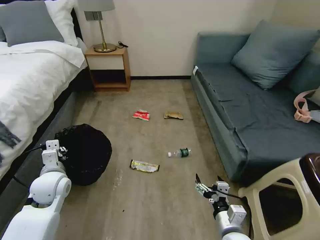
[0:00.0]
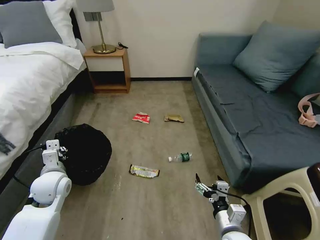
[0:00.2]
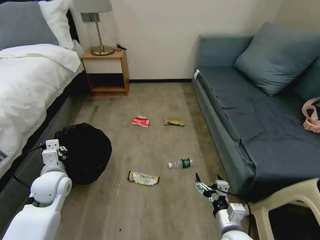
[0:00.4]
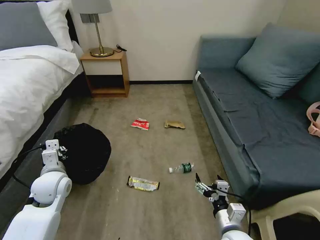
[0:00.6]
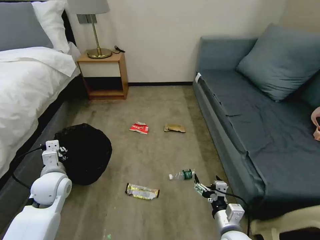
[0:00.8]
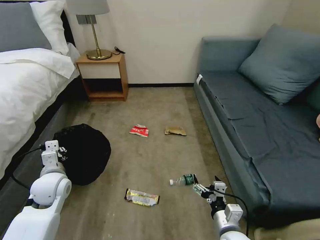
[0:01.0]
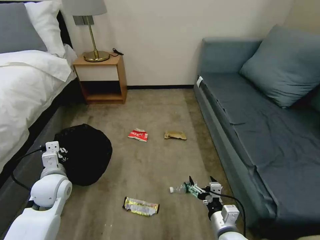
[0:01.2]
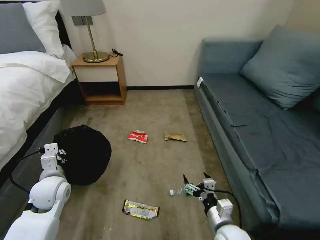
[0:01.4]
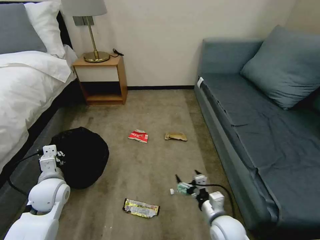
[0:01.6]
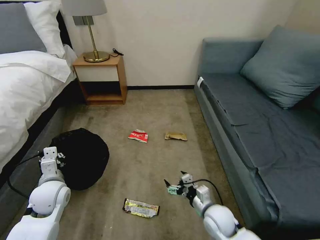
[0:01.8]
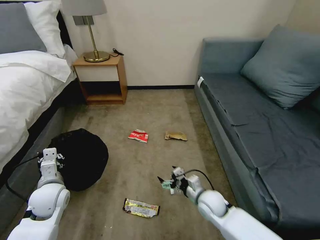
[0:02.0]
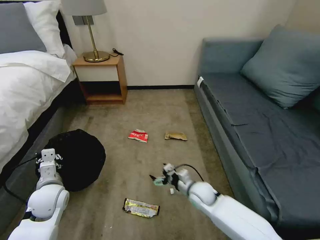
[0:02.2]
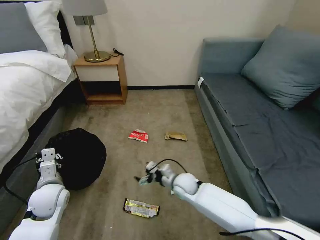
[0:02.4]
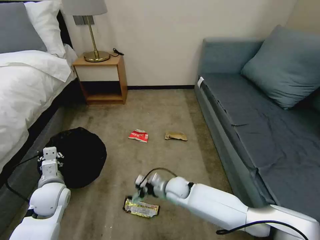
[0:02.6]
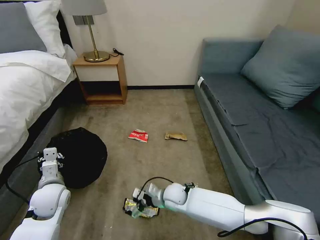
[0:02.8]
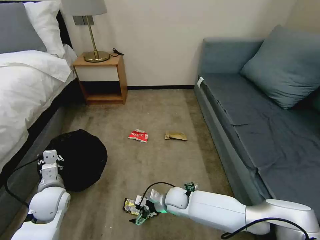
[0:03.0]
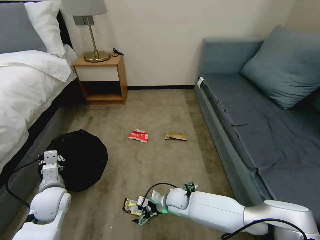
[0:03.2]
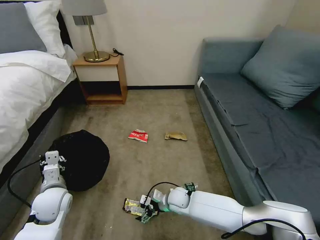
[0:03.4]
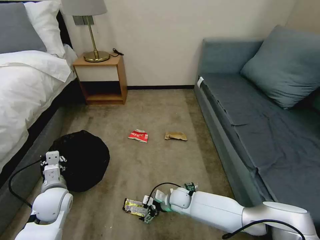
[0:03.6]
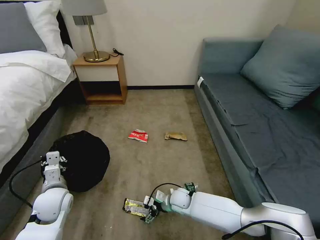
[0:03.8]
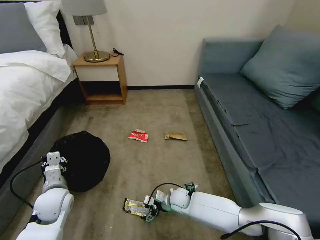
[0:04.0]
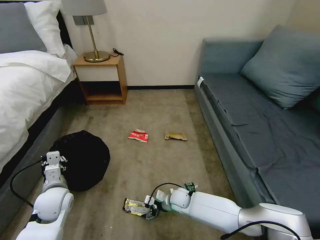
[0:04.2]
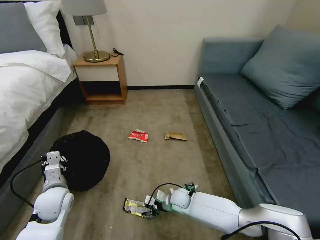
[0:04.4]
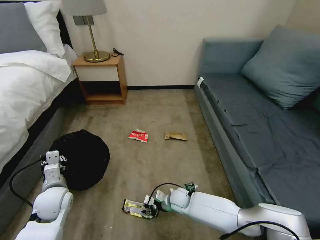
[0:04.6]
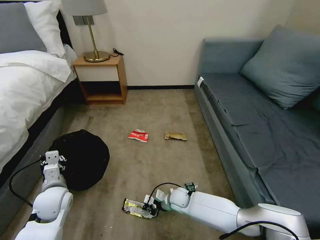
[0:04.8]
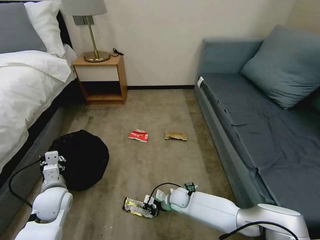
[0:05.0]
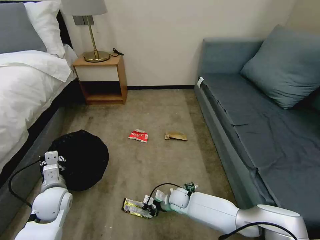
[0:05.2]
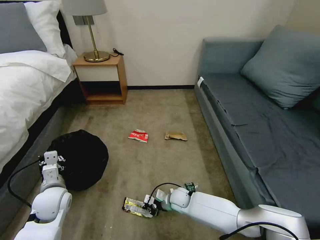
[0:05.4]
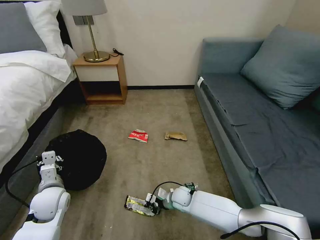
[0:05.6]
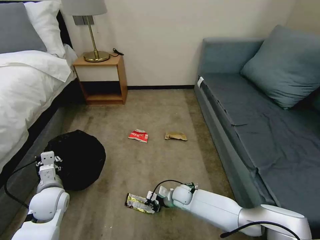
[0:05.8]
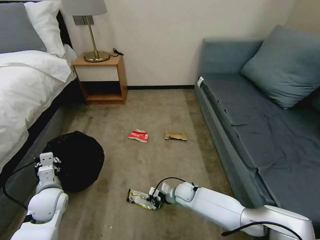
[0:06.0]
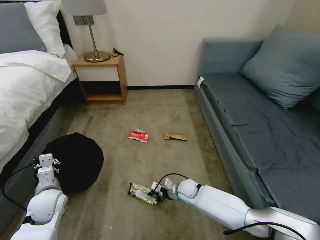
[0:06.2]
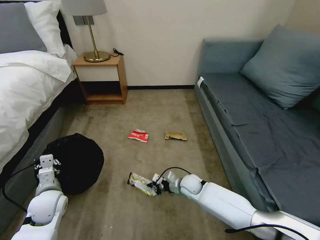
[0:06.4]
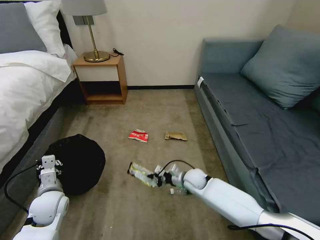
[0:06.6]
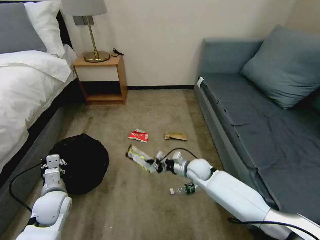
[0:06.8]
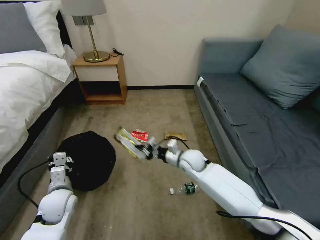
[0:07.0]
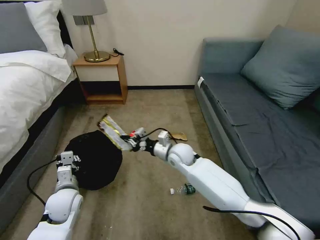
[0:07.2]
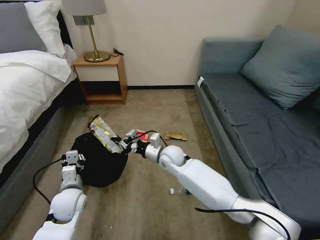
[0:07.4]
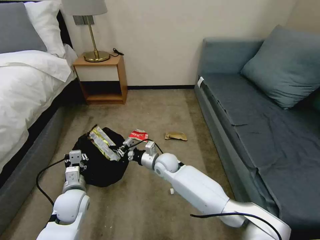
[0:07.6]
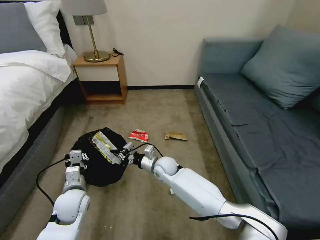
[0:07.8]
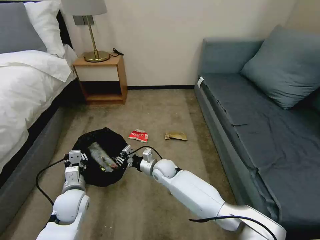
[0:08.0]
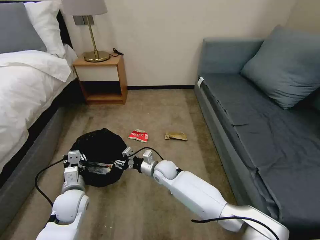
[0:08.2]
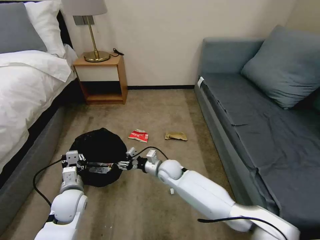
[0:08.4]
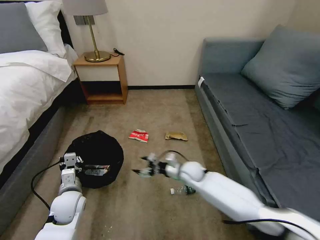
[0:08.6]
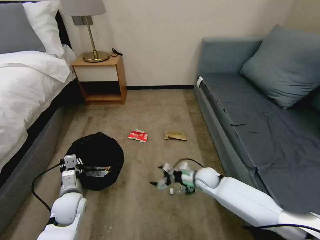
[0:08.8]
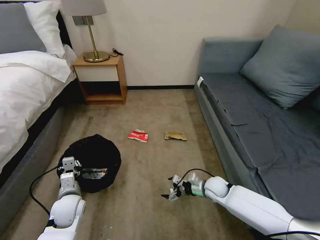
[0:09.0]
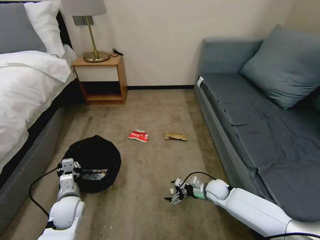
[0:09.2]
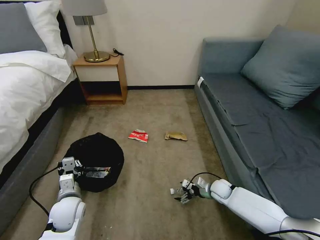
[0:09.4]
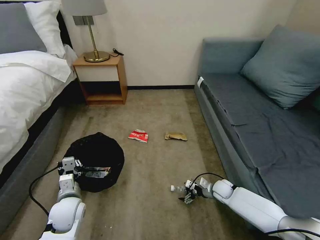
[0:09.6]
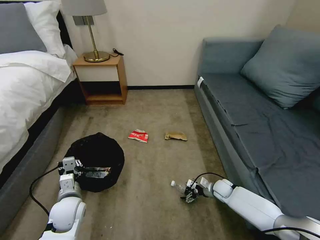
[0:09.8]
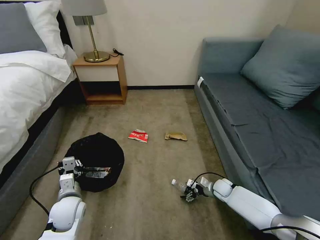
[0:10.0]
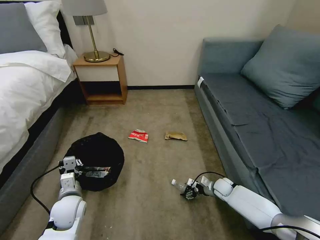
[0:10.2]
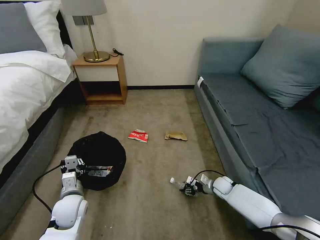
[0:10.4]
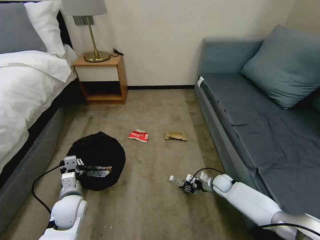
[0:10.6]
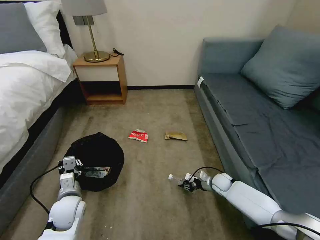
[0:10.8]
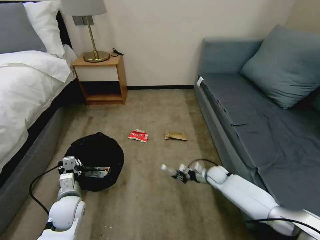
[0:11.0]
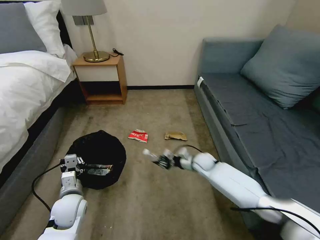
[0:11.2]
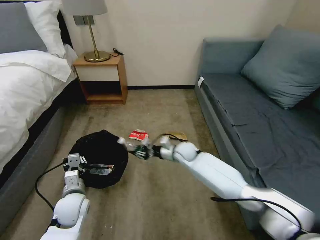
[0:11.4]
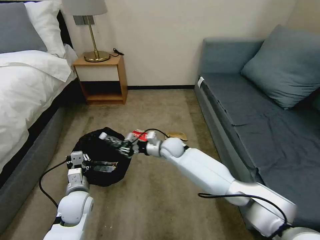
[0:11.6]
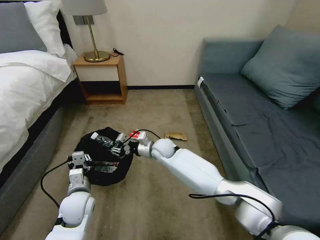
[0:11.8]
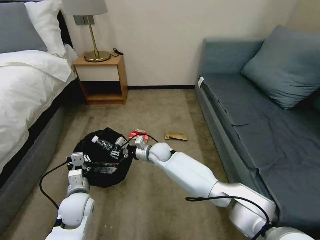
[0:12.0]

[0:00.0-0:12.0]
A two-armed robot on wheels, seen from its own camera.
Task of the whole recording: Pick up the trash bin, then pick up the garbage on the floor and place it into the trash bin.
0:00.0 to 0:01.6: The right gripper travels forward by roughly 5 cm.
0:01.6 to 0:03.0: The right gripper shifts roughly 20 cm to the left, forward and downward.
0:03.0 to 0:04.4: The right gripper travels downward by approximately 5 cm, and closes.
0:04.4 to 0:06.0: The right gripper closes.
0:06.0 to 0:07.6: The right gripper is displaced upward, to the left and forward by roughly 20 cm, while the left gripper is displaced to the right by some 5 cm.
0:07.6 to 0:09.0: The right gripper travels to the right and downward by approximately 25 cm, and opens up.
0:09.0 to 0:10.4: The right gripper heads downward and to the right, covering about 10 cm, and closes.
0:10.4 to 0:12.0: The right gripper heads to the left and upward, covering roughly 35 cm.

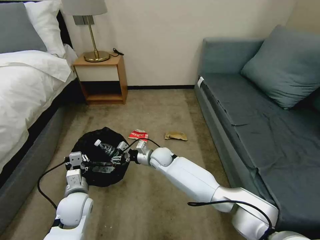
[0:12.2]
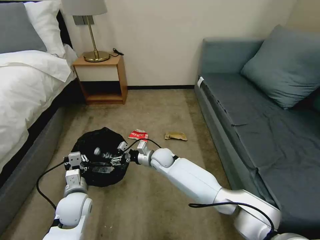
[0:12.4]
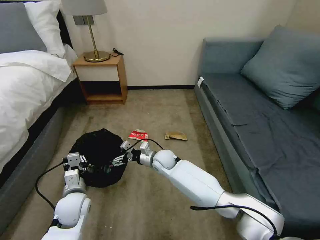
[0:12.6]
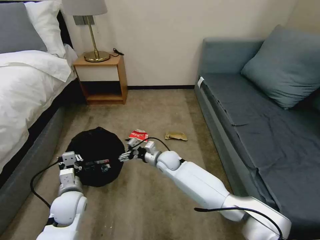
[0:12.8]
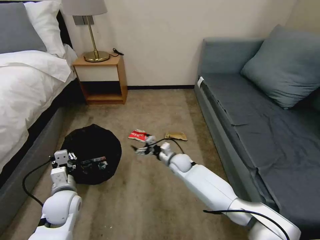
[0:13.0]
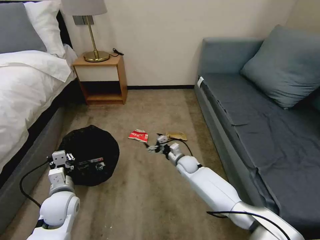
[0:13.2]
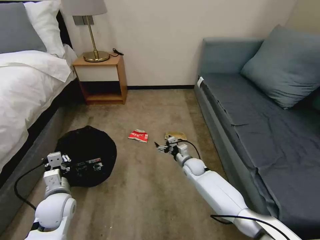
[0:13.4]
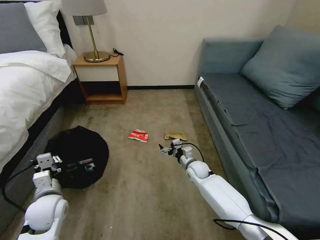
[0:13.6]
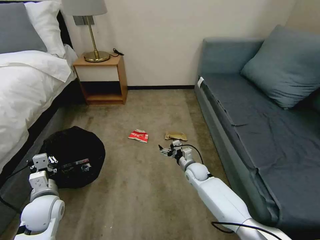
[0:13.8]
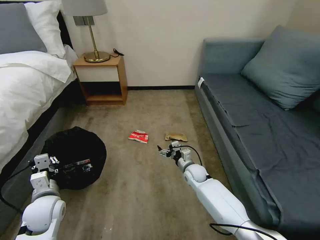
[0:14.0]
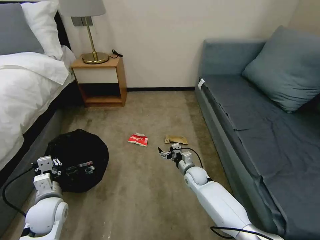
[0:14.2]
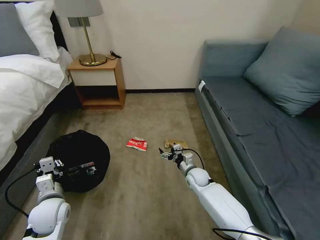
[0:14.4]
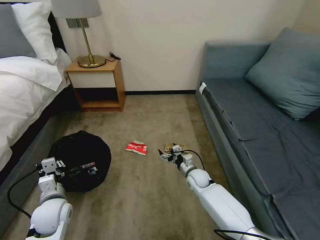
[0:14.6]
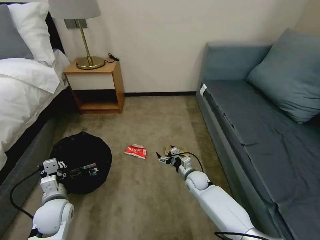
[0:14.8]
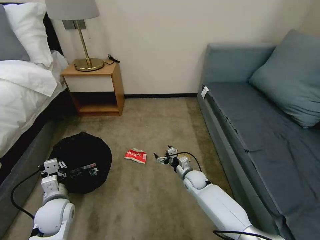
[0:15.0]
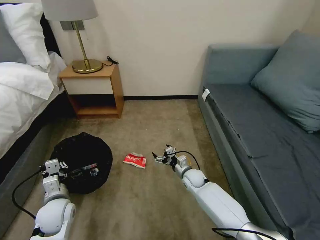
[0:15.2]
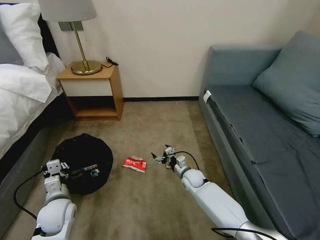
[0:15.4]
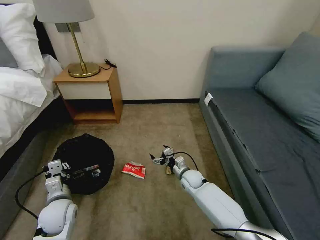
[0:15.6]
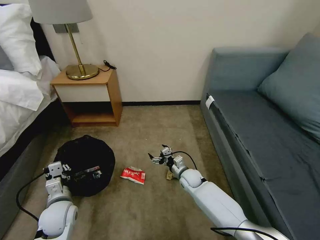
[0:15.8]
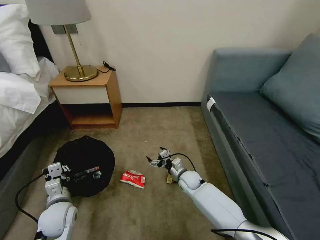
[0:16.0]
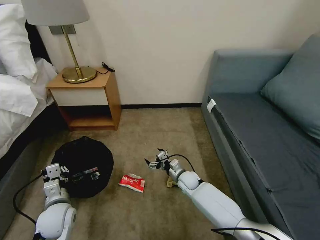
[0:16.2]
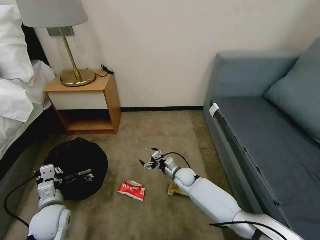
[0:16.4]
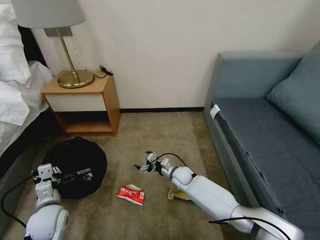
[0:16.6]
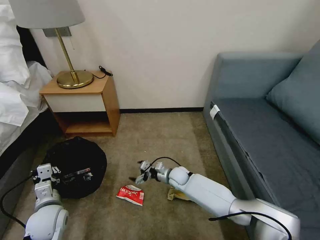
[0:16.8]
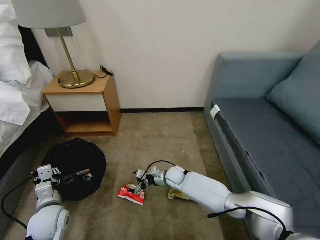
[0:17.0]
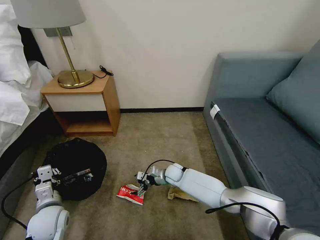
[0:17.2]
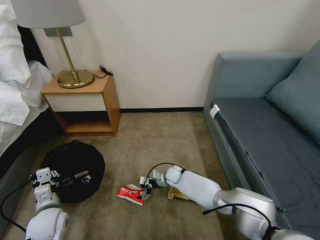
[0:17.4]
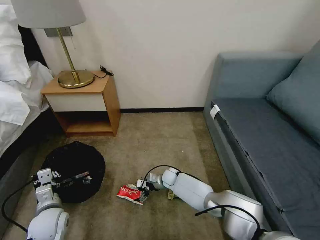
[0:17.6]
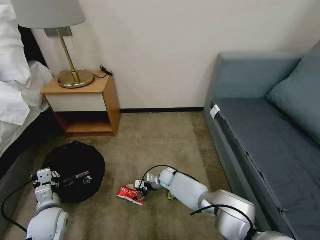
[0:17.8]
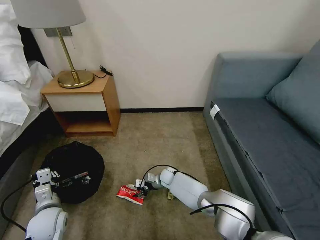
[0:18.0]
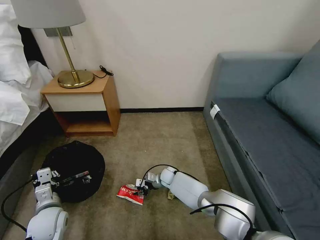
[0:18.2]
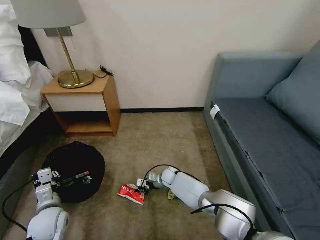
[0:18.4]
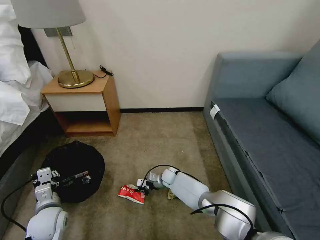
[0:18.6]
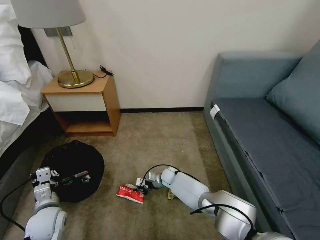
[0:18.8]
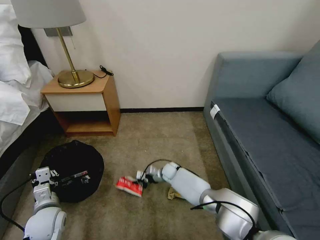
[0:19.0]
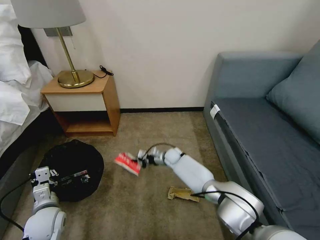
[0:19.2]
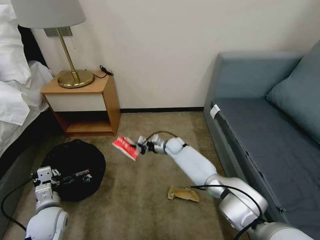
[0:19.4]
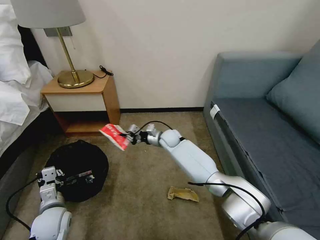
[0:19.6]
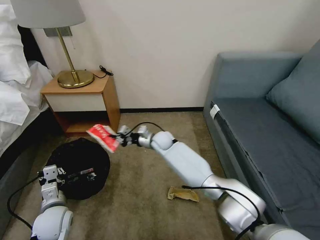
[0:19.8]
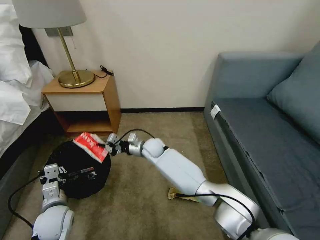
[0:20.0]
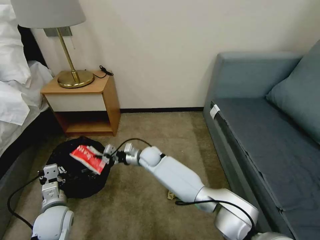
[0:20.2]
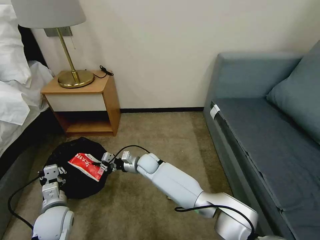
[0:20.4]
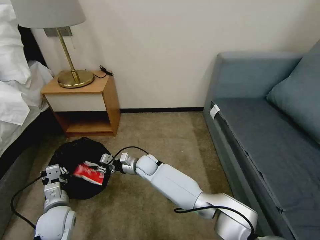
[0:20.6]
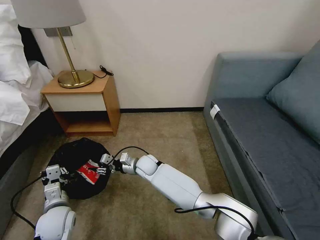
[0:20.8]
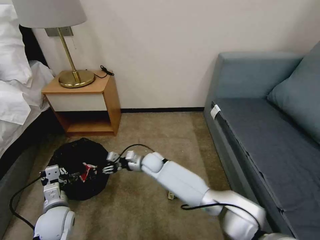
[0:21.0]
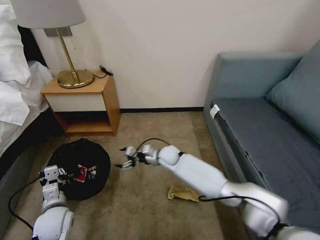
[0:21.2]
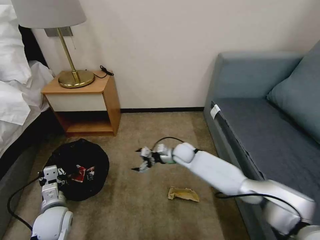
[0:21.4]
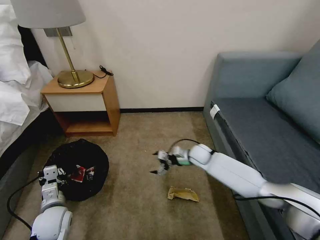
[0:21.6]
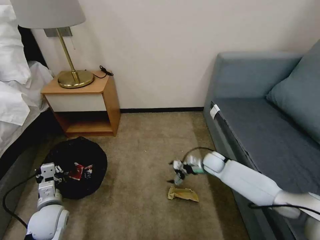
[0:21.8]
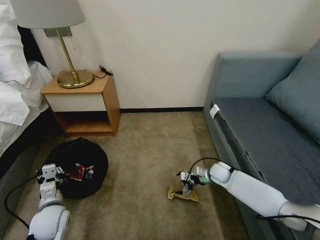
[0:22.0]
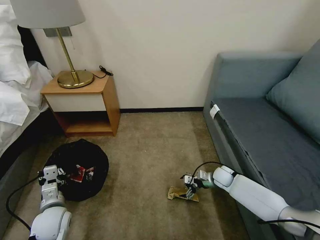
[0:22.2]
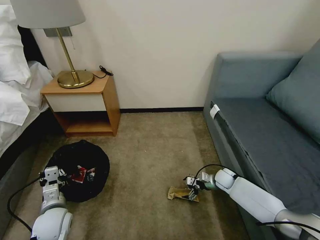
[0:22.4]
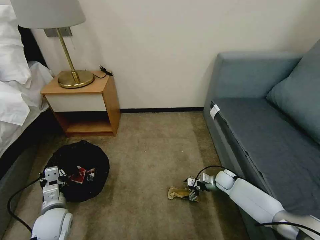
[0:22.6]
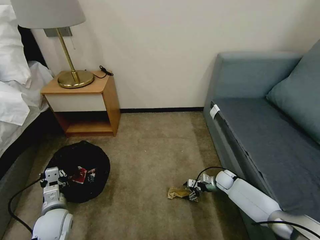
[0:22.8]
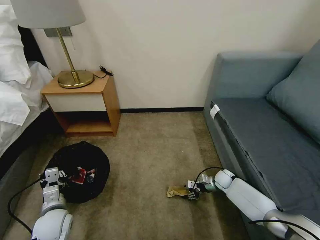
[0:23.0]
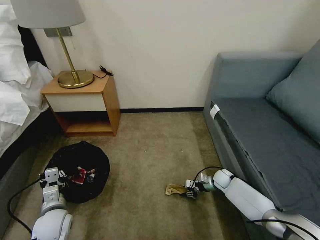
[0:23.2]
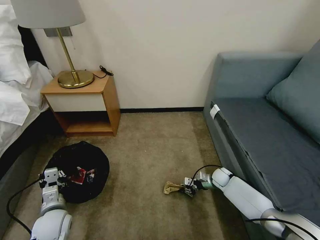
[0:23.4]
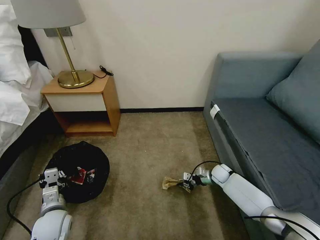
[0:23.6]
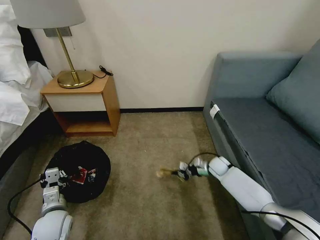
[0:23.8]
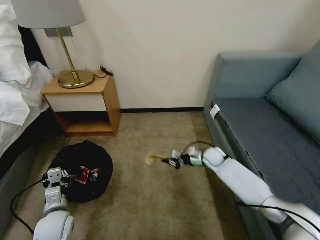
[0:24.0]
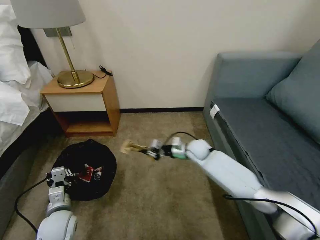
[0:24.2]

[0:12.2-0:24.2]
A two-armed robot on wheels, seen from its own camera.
Task of the whole recording: Pick up the trash bin, then pick up the garbage on the floor and place it into the trash bin.
0:12.2 to 0:13.8: The left gripper moves to the left, some 10 cm; the right gripper shifts roughly 20 cm to the right and downward, and opens up.
0:16.6 to 0:18.2: The right gripper shifts roughly 10 cm downward and to the left, and closes up.
0:18.2 to 0:19.8: The right gripper heads upward, covering approximately 20 cm.
0:19.8 to 0:21.2: The right gripper opens up.
0:21.2 to 0:22.6: The right gripper goes roughly 30 cm to the right and downward.
0:22.6 to 0:24.2: The right gripper heads upward, to the left and forward, covering about 20 cm, and closes its fingers.
